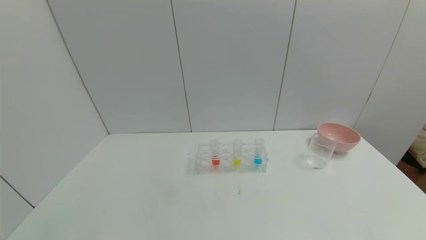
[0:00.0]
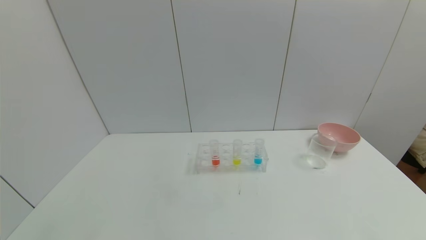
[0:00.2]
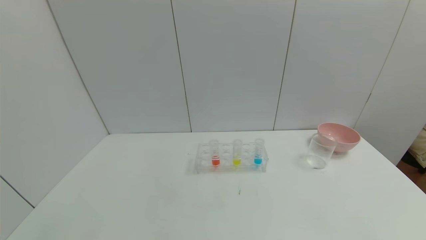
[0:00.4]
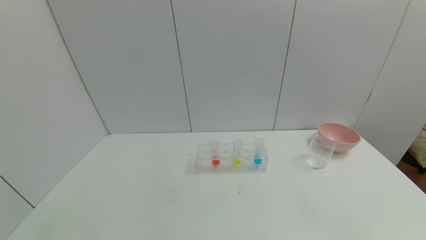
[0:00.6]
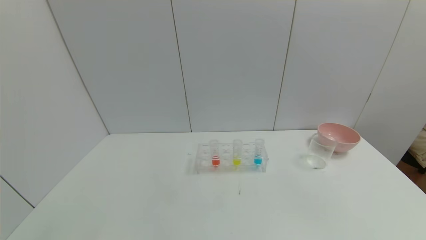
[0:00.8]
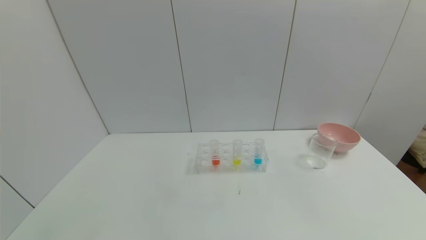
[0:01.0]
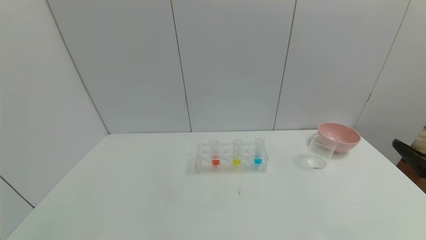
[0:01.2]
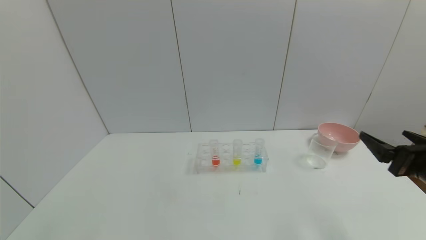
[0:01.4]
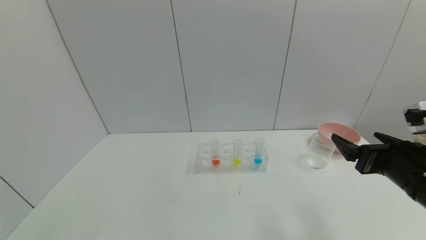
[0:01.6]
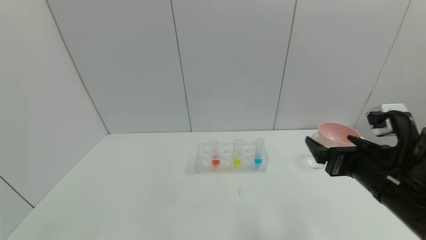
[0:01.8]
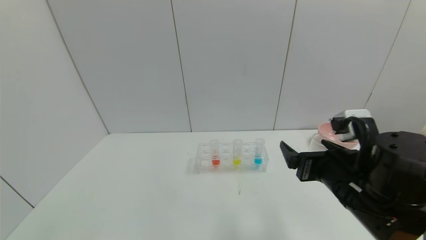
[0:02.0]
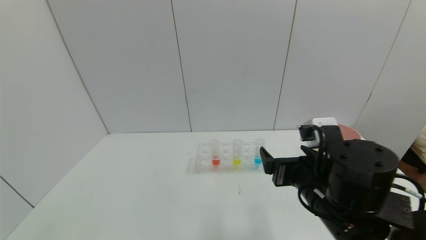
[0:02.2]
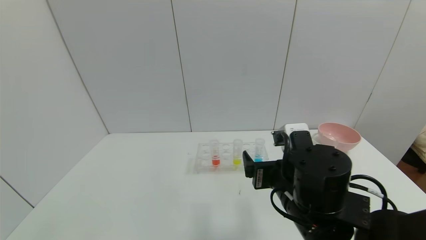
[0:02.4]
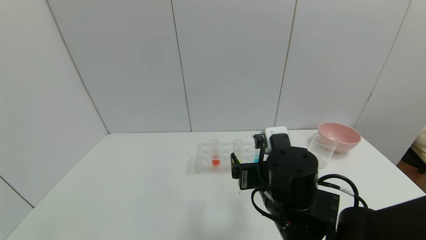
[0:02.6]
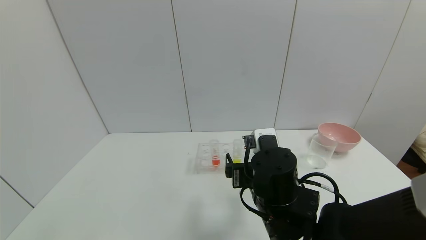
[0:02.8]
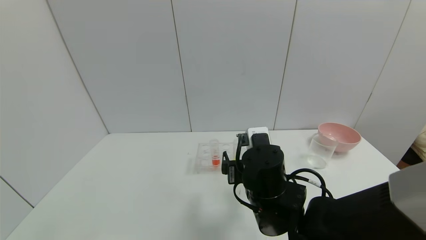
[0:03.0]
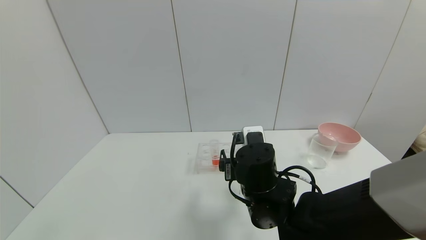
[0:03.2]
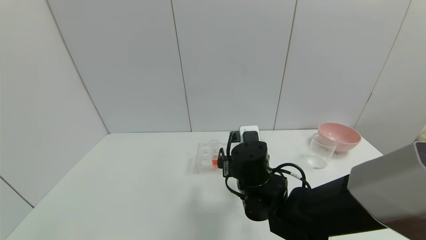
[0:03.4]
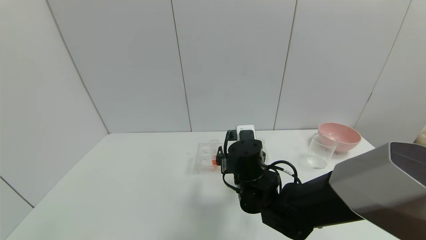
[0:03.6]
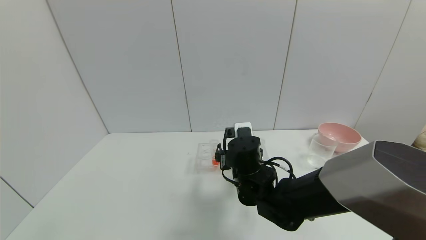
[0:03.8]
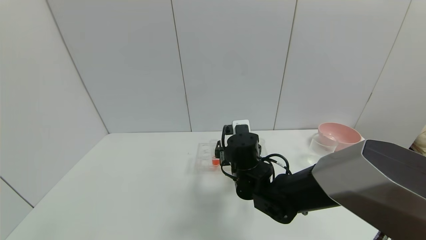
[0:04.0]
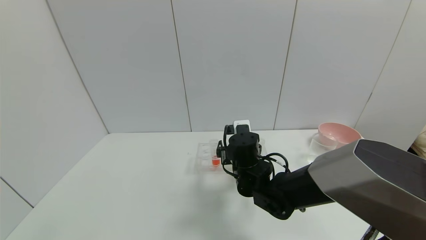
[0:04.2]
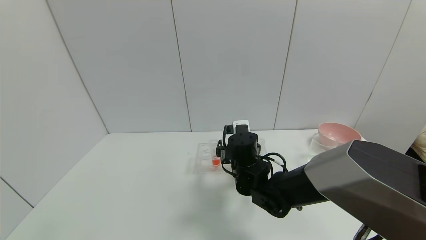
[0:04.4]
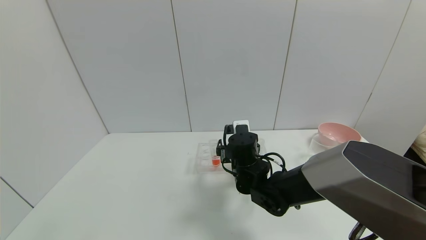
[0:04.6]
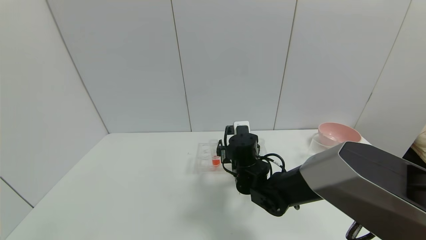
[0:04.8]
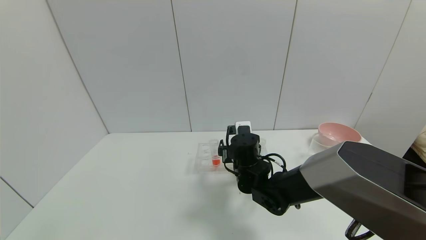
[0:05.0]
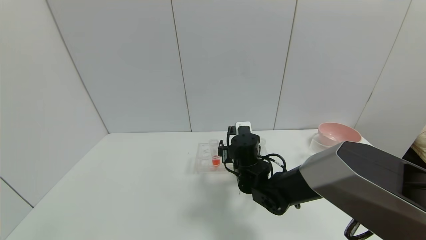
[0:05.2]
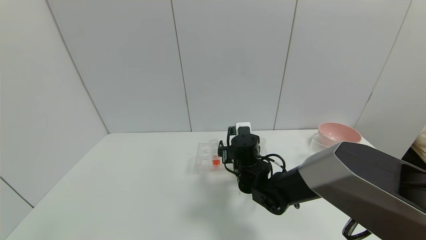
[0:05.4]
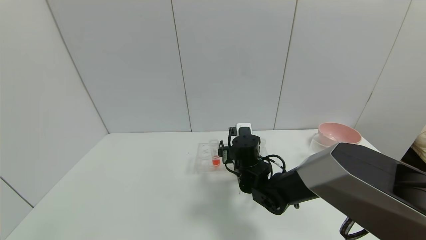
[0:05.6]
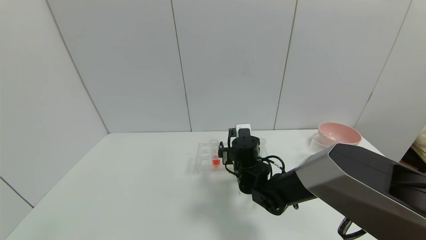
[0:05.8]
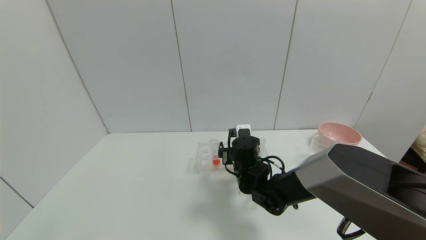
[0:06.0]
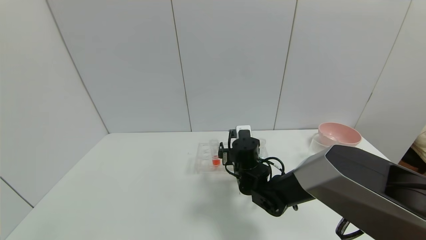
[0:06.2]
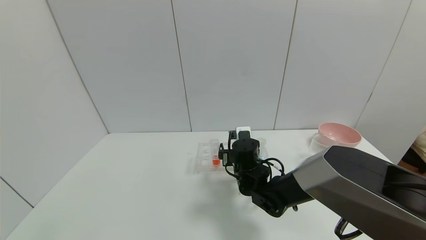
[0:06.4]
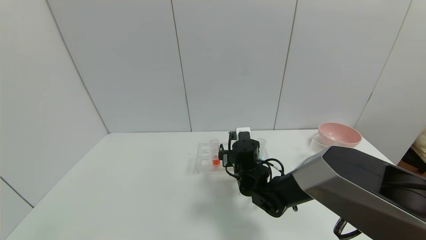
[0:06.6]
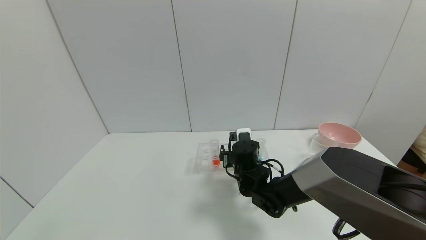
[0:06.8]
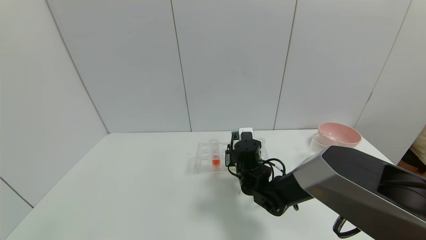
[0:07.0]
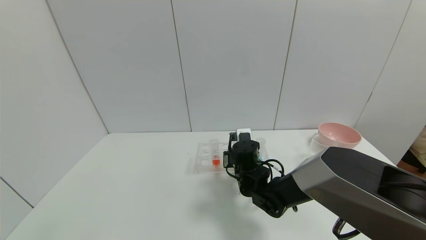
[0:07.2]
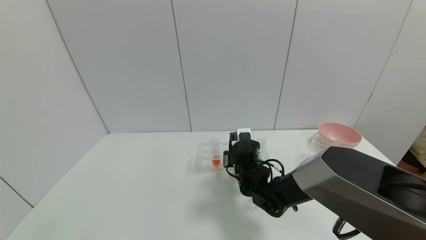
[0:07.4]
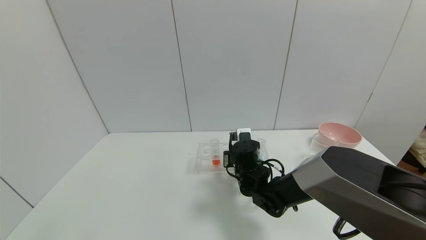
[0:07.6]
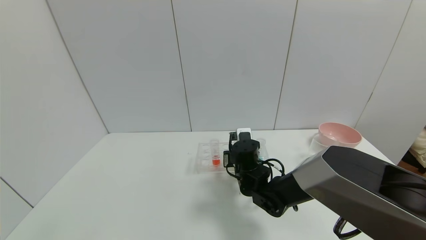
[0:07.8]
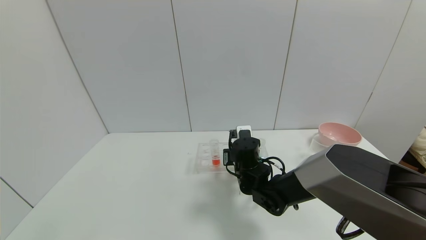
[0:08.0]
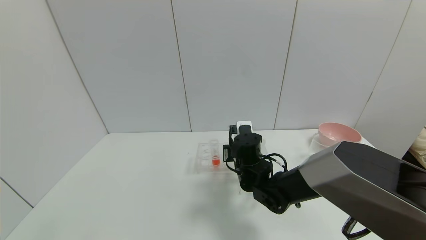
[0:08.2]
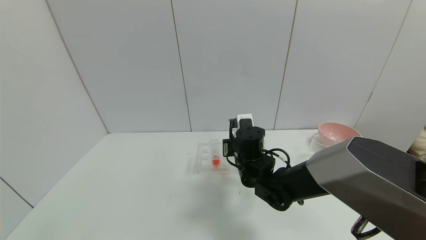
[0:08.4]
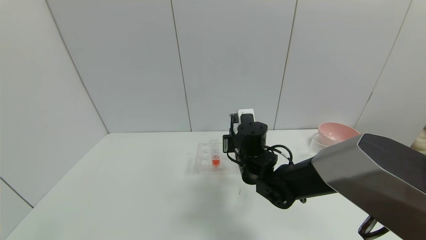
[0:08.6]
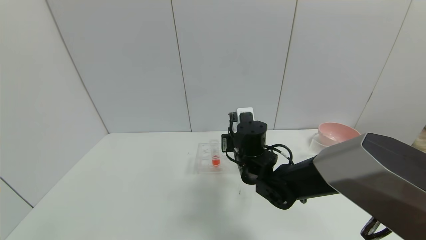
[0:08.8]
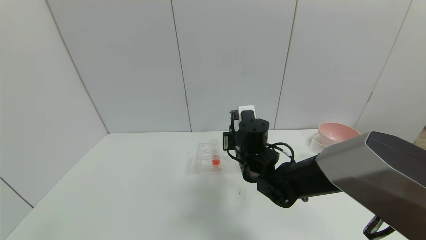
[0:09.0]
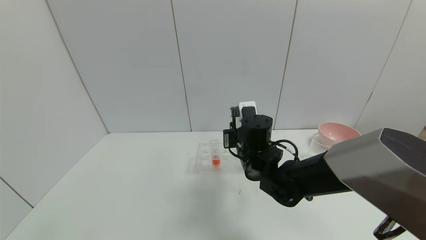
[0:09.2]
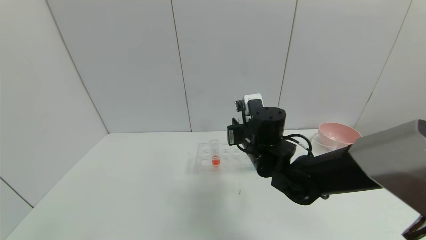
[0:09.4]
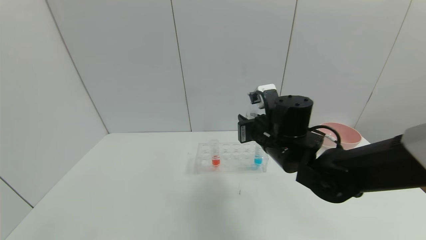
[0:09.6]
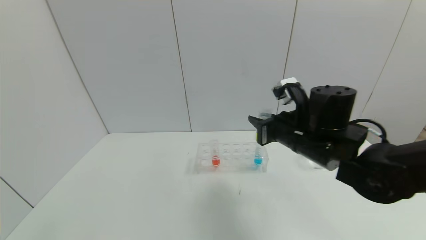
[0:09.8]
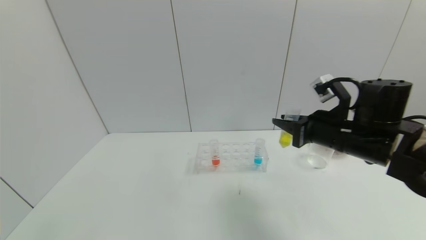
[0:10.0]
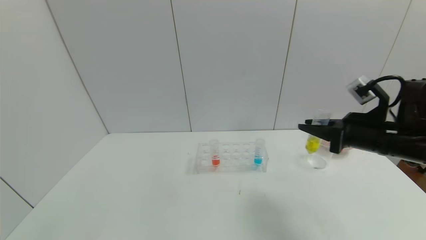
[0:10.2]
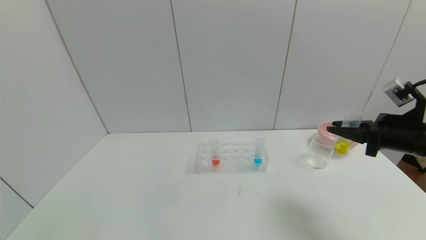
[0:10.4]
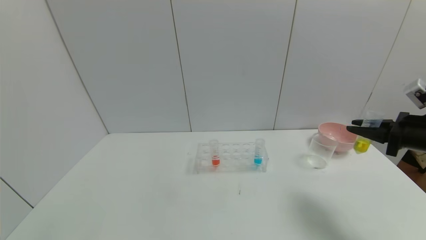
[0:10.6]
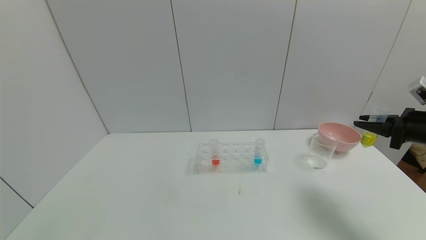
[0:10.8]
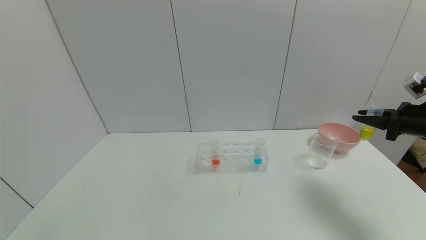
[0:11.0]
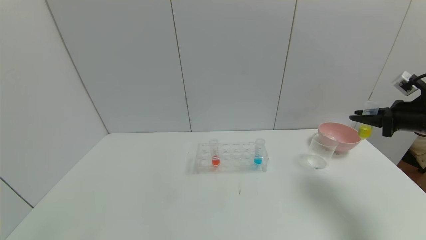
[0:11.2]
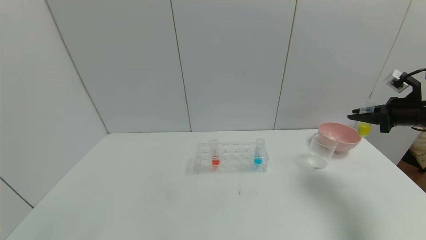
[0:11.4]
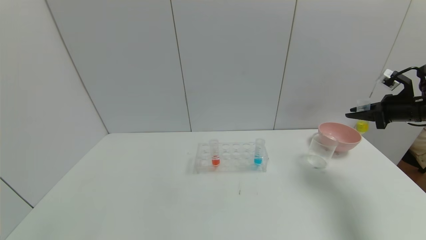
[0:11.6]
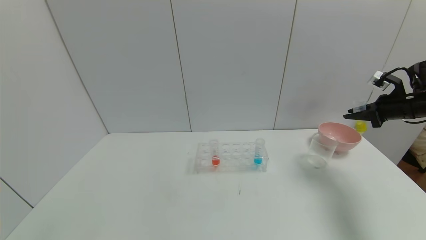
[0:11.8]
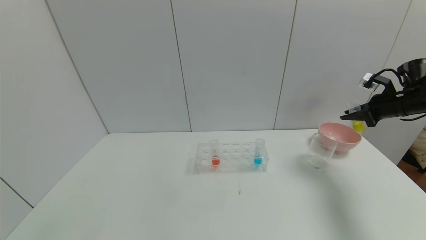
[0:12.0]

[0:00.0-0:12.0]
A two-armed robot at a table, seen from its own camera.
Task of the whole recording: pick up the test tube with yellow pigment and the test tube with blue pigment by grippers and pour them into the beaker.
Step, 0:00.0 to 0:07.4: Grasp the yellow reagent with the right gripper.
0:00.0 to 0:01.6: The right gripper goes about 25 cm forward and upward.
0:01.6 to 0:03.0: The right gripper heads to the left, covering approximately 20 cm.
0:03.0 to 0:04.4: The right gripper heads forward, covering approximately 10 cm.
0:04.4 to 0:06.0: The grippers move only a little.
0:06.0 to 0:07.6: The right gripper closes.
0:07.6 to 0:09.0: The right gripper goes approximately 5 cm upward.
0:09.0 to 0:10.4: The right gripper travels to the right by roughly 30 cm.
0:10.4 to 0:12.0: The right gripper shifts about 20 cm forward and to the right.

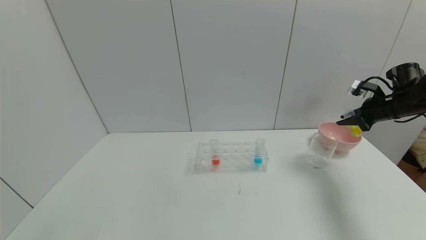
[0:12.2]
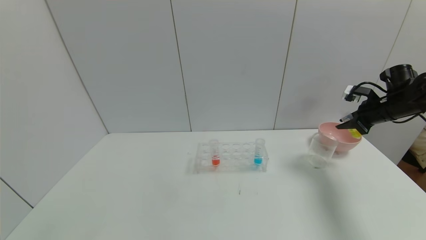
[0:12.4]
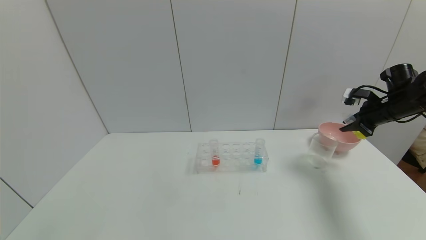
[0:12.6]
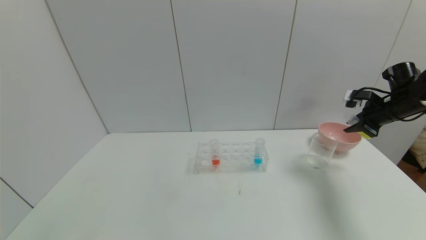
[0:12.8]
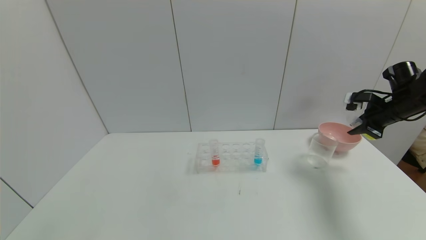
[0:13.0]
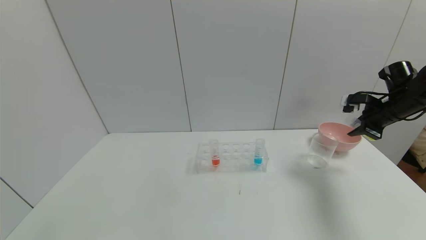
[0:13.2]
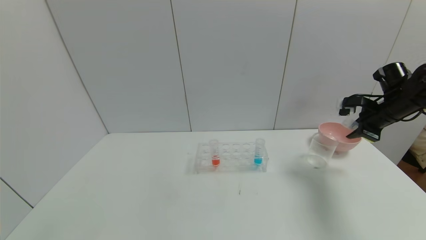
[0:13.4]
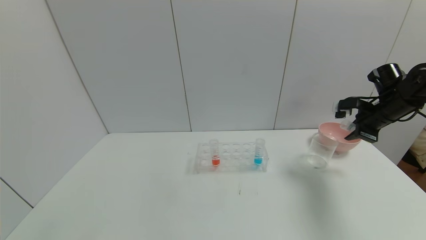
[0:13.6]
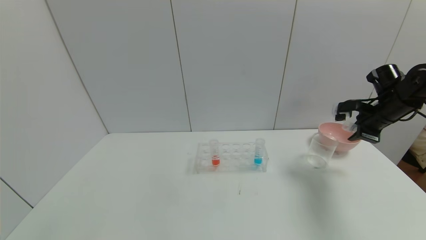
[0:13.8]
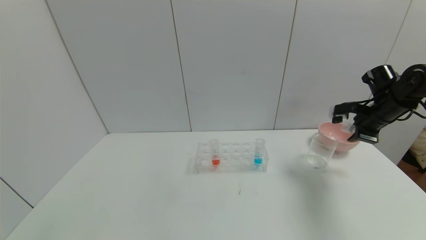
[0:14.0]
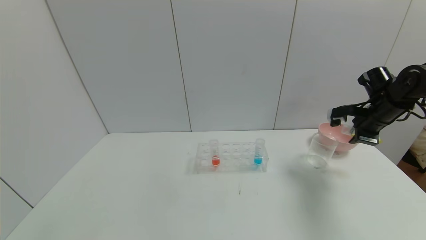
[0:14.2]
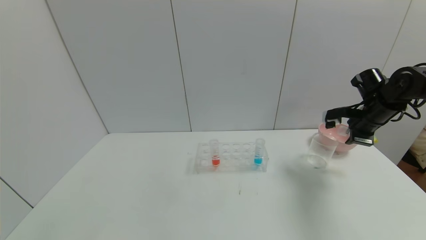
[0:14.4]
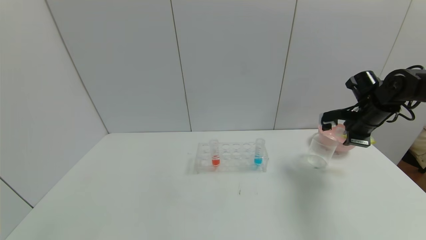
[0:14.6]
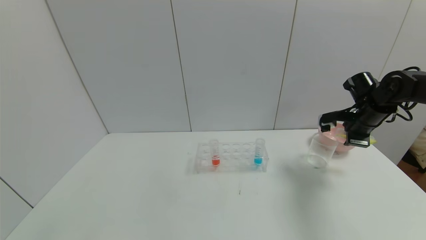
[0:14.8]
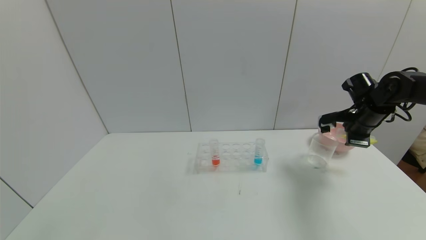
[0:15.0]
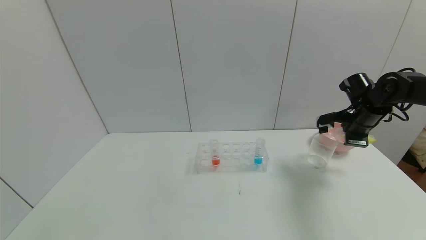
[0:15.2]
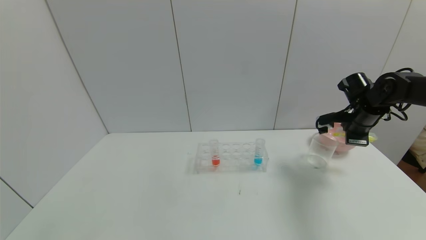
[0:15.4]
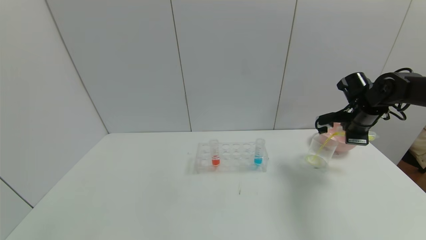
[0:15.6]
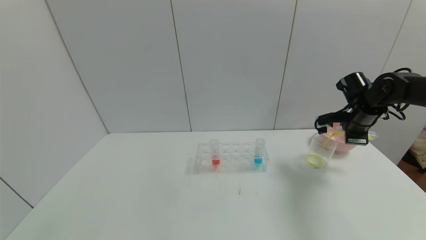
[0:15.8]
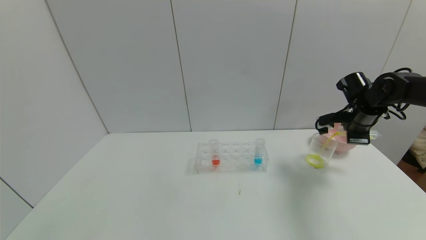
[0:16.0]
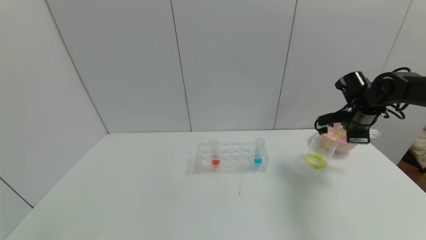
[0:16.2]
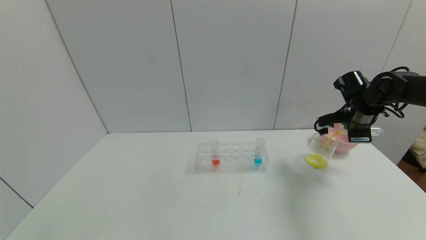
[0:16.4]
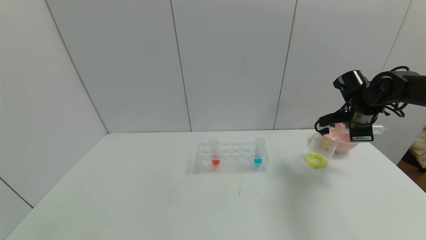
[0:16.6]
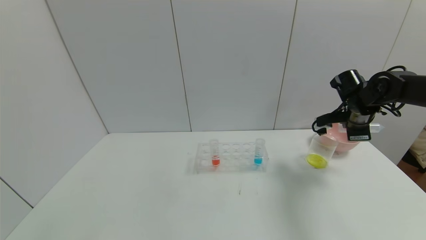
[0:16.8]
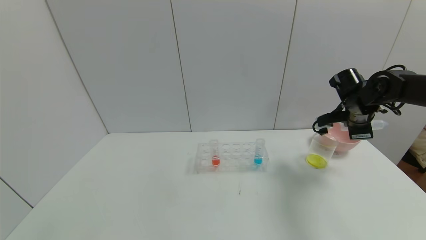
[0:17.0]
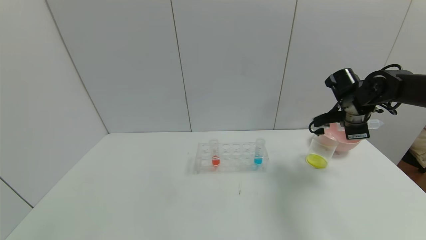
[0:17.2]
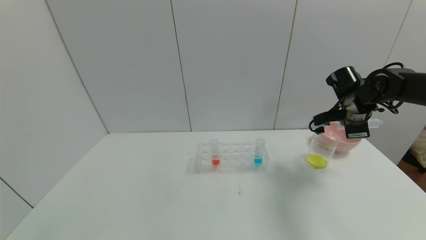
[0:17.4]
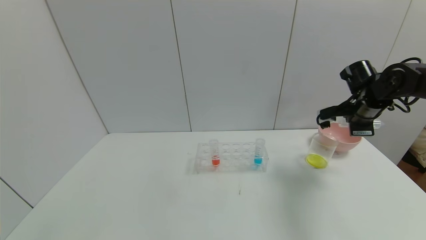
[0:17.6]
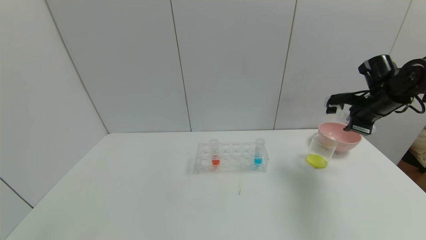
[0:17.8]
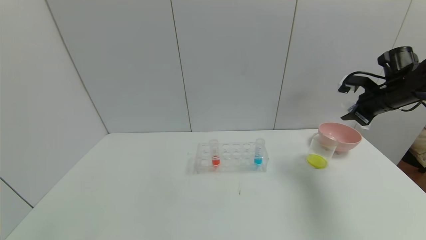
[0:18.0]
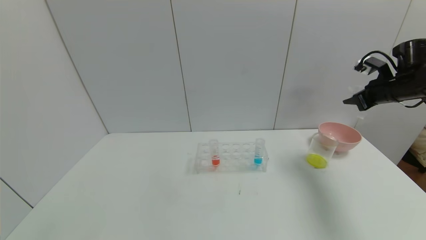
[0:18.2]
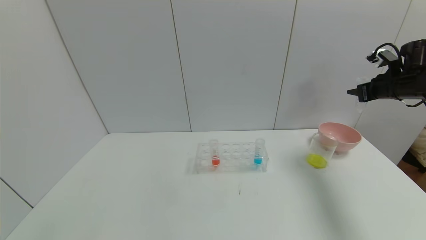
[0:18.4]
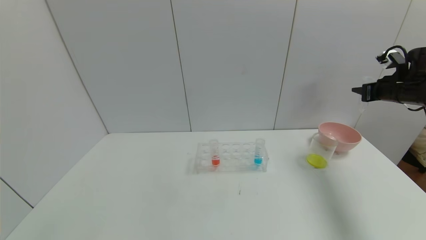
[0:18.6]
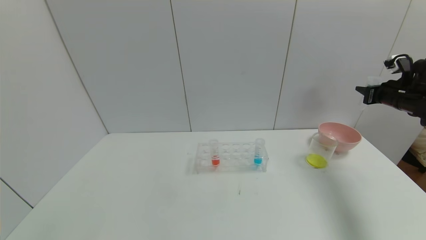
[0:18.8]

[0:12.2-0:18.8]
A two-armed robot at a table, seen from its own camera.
Task of the whole recording: pick up the test tube with yellow pigment and the test tube with blue pigment by grippers and pour them into the beaker.
Step, 0:12.2 to 0:16.8: Pour the yellow reagent into the graduated cylinder with the right gripper.
0:12.2 to 0:13.8: The right gripper moves about 5 cm.
0:13.8 to 0:15.4: There are only small adjustments of the grippers.
0:15.4 to 0:17.2: The grippers stay close to where they were, moving slightly.
0:17.2 to 0:18.8: The right gripper goes roughly 15 cm to the right.
